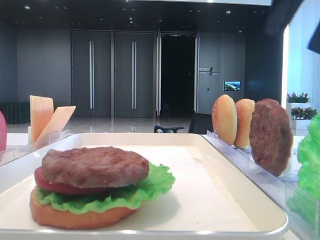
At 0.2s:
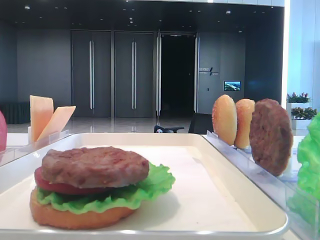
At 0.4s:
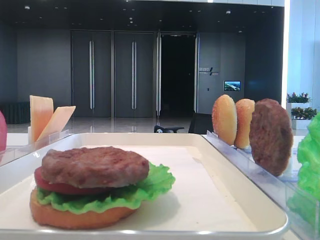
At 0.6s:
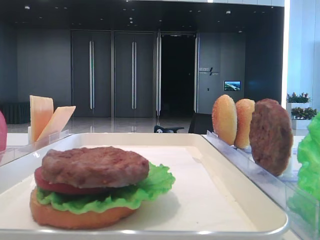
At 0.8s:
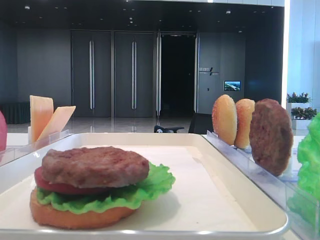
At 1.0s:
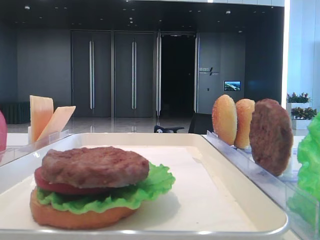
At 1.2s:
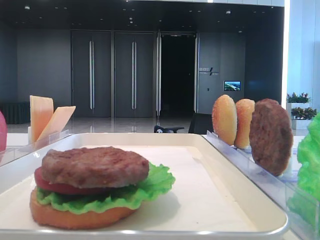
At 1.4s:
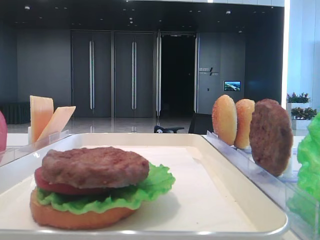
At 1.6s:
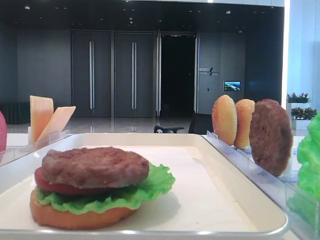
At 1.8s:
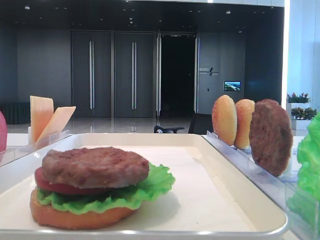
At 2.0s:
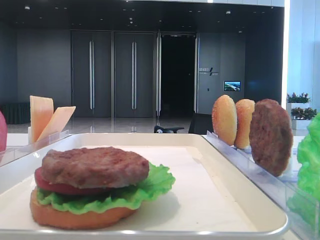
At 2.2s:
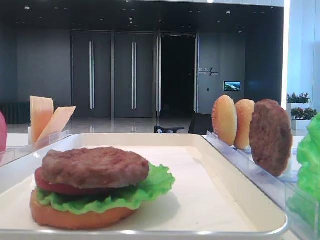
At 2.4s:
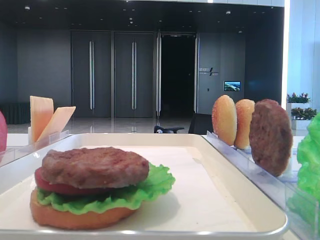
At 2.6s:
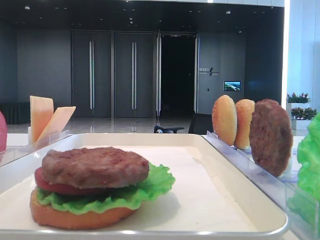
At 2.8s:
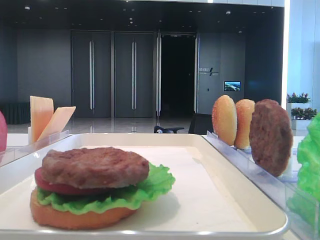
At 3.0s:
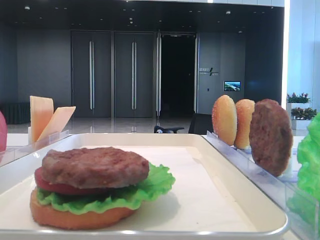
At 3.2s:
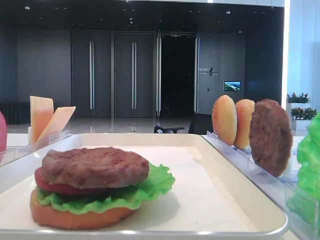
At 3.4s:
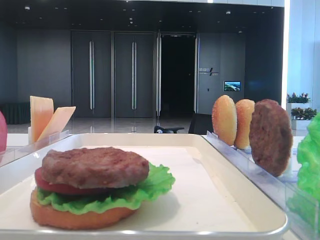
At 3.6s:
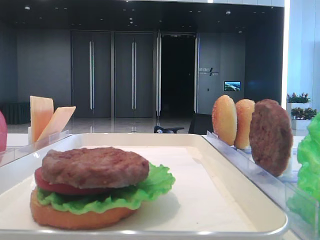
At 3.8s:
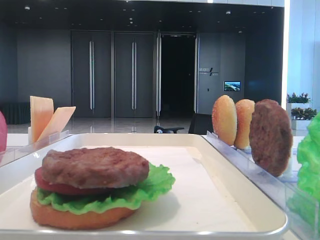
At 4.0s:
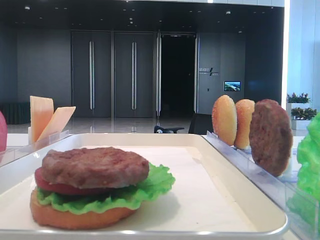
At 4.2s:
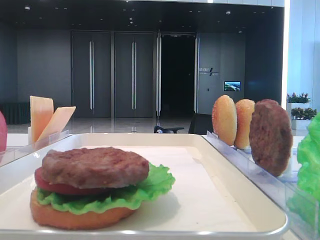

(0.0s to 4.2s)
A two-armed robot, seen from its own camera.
0.0s - 1.4s: The right gripper goes roughly 15 cm backward and to the right.
2.8s - 4.2s: Both grippers stay about where they are.

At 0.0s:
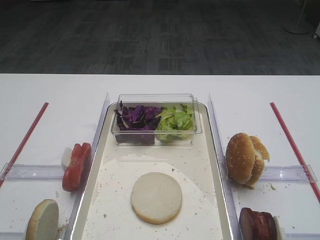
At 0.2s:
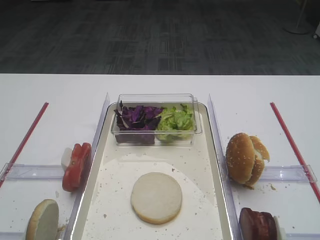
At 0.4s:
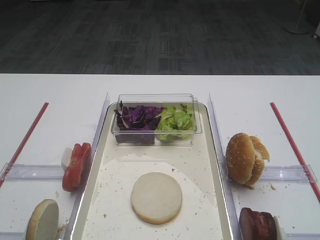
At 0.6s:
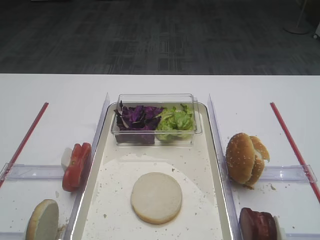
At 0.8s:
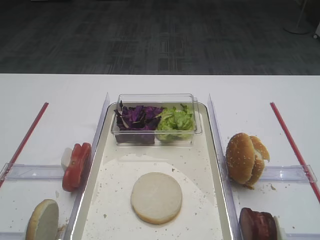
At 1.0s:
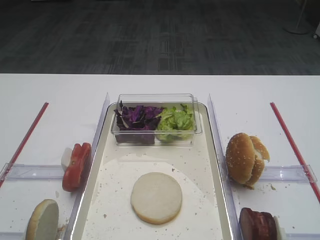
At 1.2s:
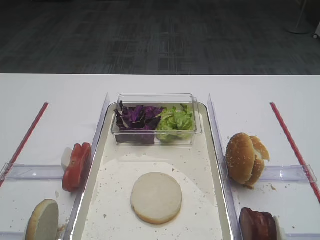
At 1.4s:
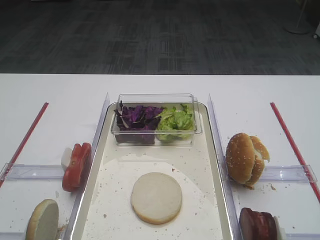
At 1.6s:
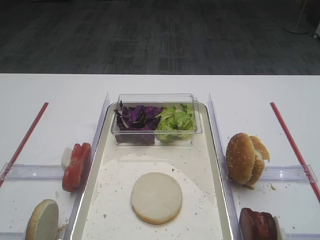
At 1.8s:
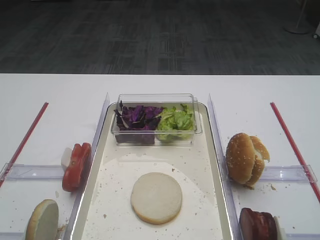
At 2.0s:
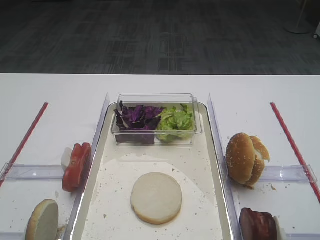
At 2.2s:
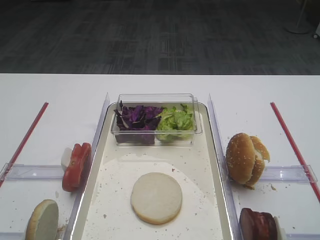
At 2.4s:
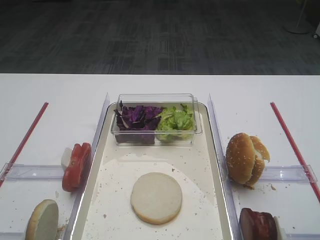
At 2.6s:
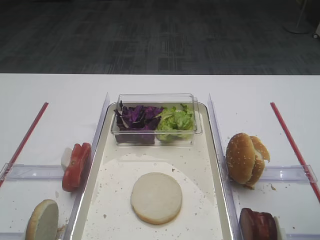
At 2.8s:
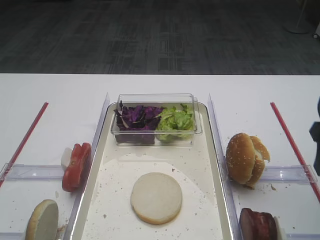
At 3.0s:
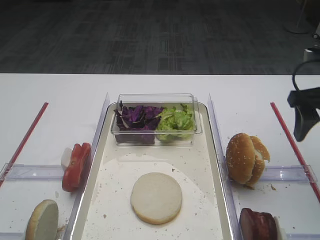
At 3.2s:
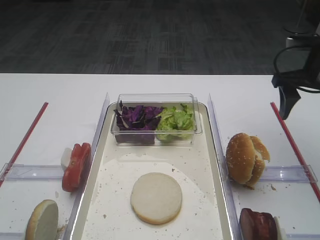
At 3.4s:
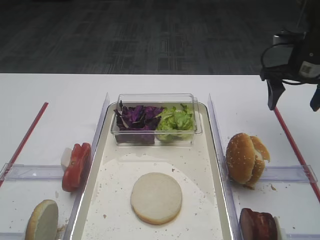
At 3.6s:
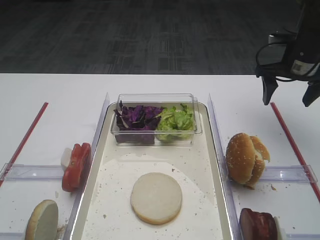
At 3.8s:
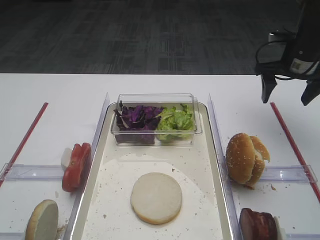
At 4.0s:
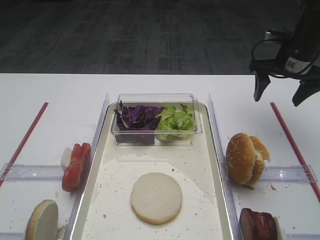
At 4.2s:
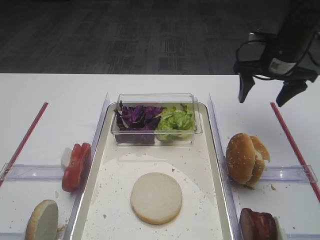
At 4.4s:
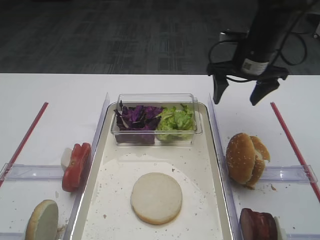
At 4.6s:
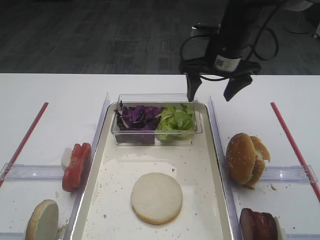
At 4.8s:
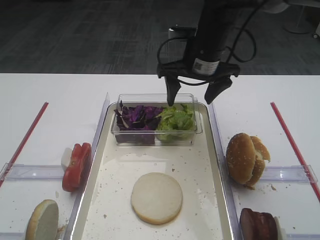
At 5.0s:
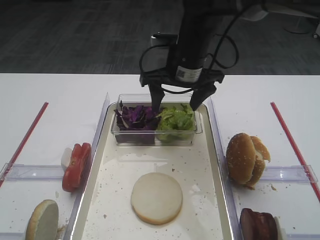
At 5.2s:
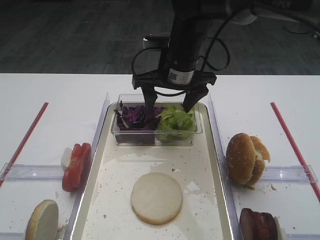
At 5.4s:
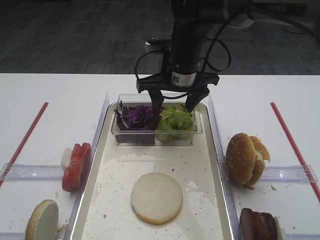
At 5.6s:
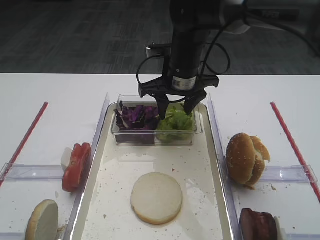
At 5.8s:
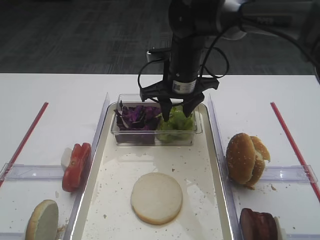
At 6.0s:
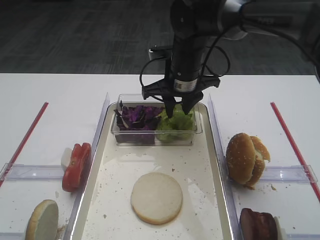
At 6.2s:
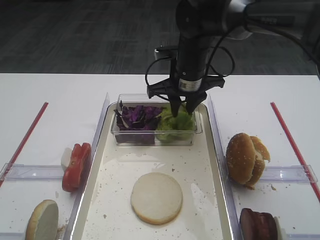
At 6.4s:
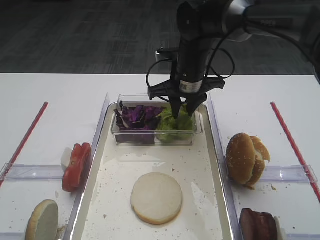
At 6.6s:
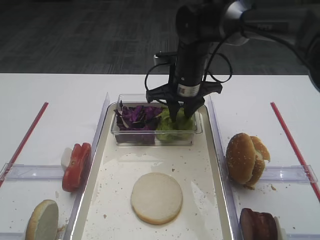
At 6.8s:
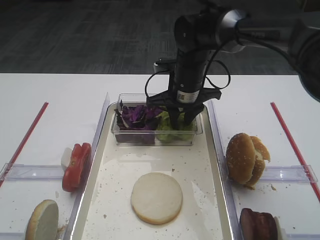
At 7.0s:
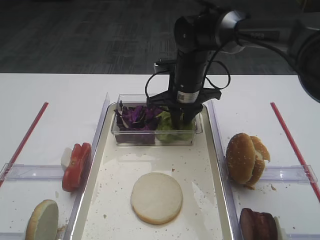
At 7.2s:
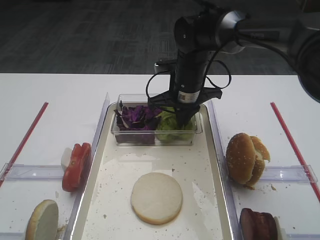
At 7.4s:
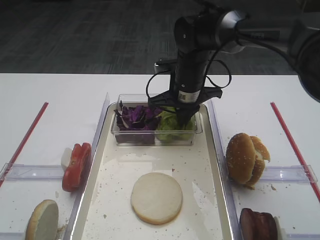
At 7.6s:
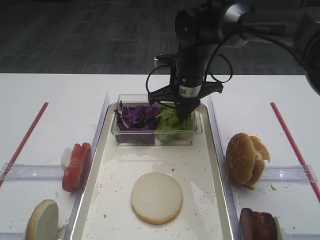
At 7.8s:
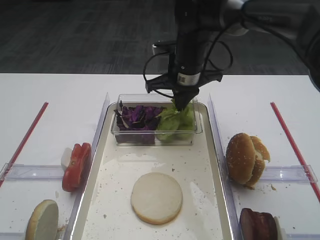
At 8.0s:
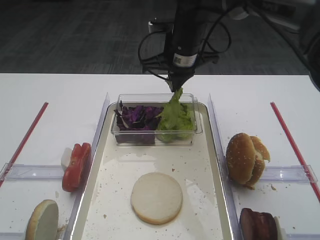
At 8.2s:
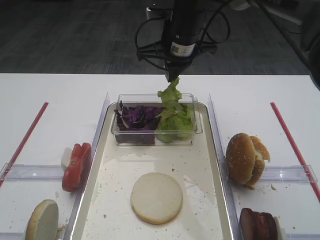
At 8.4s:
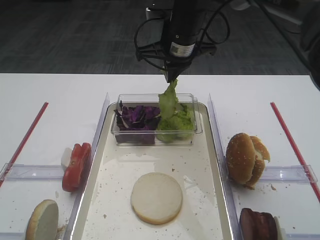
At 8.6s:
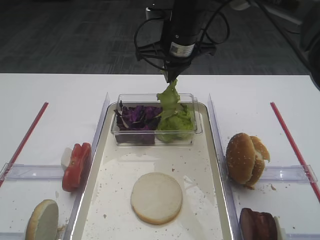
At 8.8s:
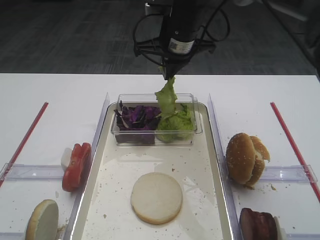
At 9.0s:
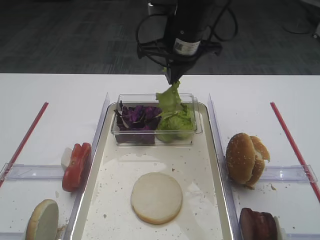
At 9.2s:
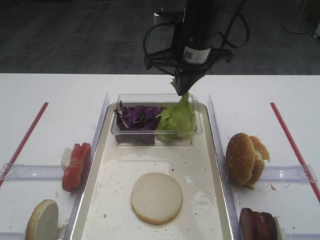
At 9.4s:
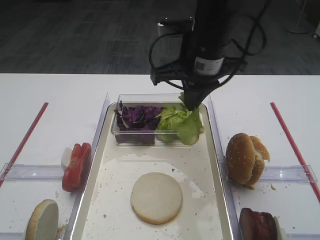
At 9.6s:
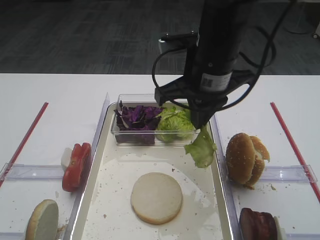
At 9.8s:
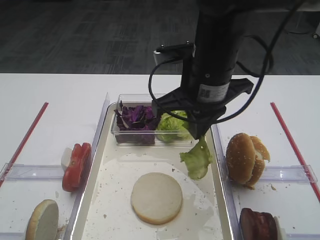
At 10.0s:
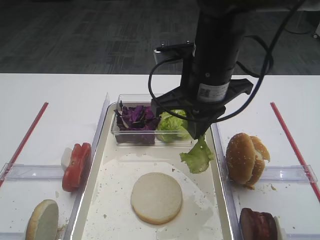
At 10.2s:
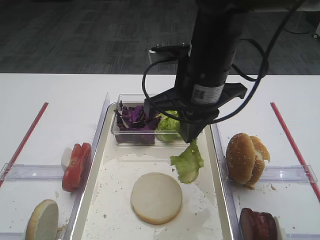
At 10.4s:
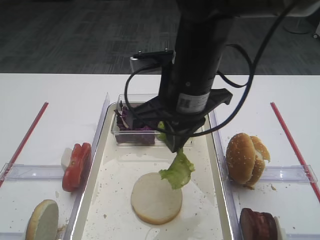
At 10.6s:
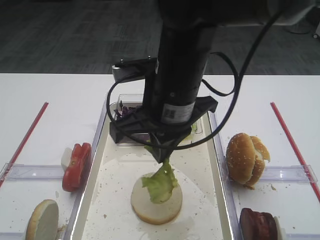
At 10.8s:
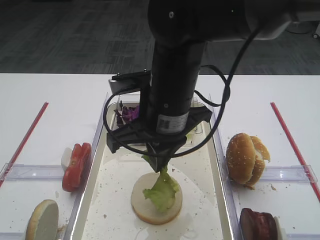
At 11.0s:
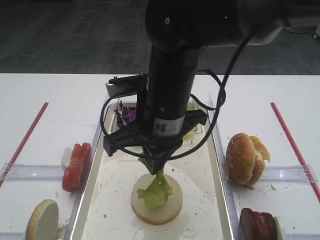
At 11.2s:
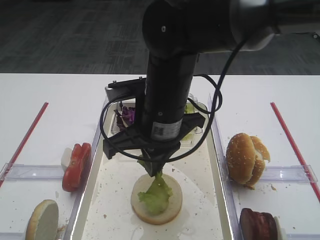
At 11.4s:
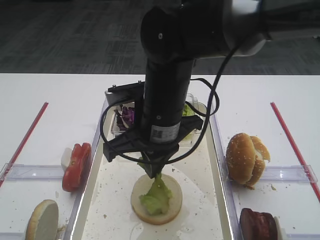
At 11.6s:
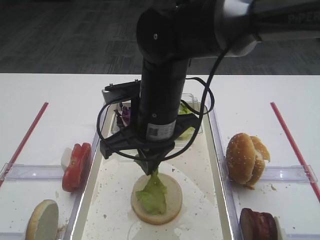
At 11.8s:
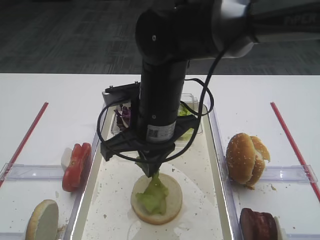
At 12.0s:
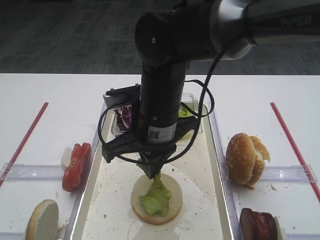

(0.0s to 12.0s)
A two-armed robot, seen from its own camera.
Step, 0.0s - 8.8s: Pick up the lettuce leaf with the right gripper.
1.6s - 3.0s: The right gripper moves forward, some 25 cm.
3.0s - 4.4s: The right gripper is displaced forward and to the left by some 15 cm.
4.4s - 6.0s: The right gripper heads to the left, covering about 15 cm, and closes its fingers.
6.0s - 7.6s: The right gripper closes.
7.6s - 9.0s: The right gripper moves upward, some 10 cm.
9.0s - 10.4s: The right gripper shifts approximately 15 cm backward.
10.4s - 12.0s: The right gripper shifts approximately 5 cm downward.

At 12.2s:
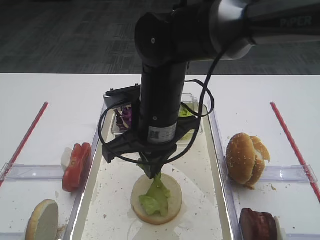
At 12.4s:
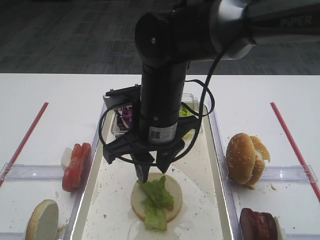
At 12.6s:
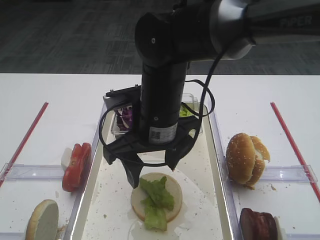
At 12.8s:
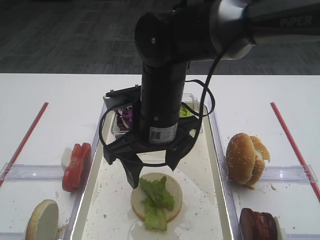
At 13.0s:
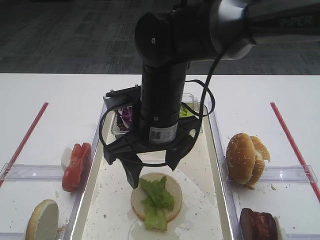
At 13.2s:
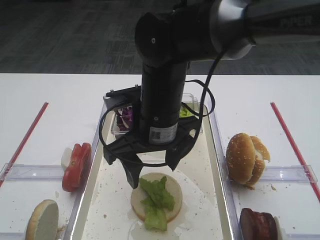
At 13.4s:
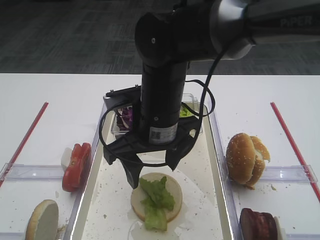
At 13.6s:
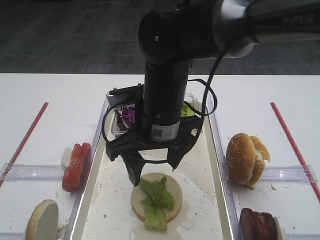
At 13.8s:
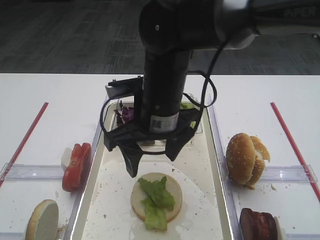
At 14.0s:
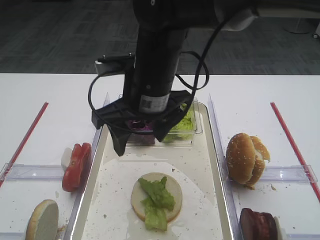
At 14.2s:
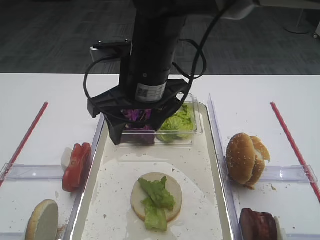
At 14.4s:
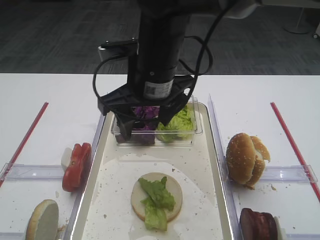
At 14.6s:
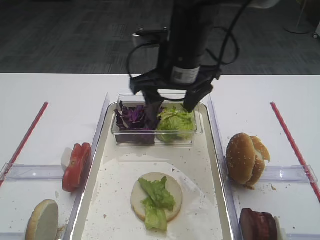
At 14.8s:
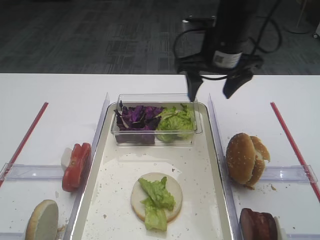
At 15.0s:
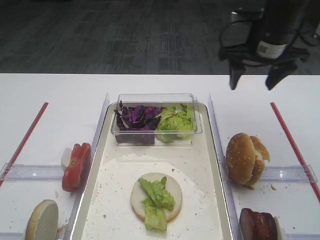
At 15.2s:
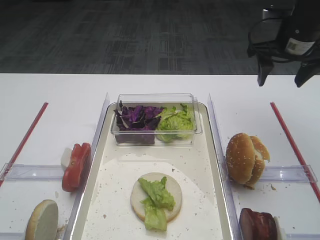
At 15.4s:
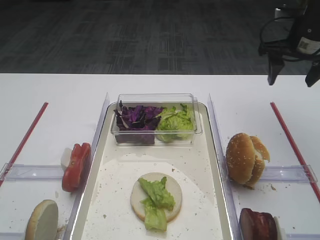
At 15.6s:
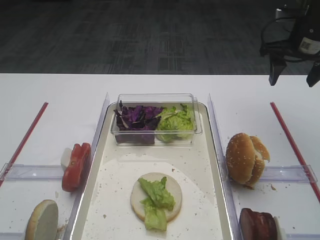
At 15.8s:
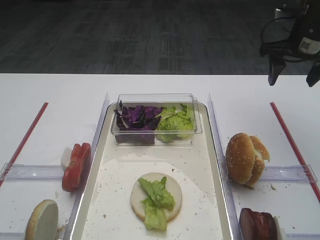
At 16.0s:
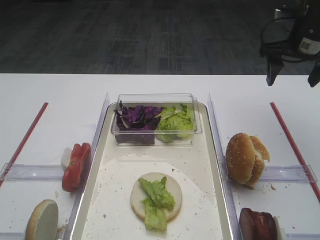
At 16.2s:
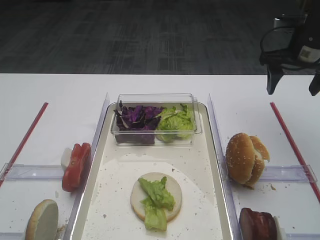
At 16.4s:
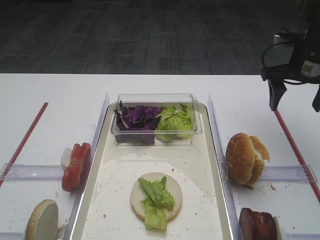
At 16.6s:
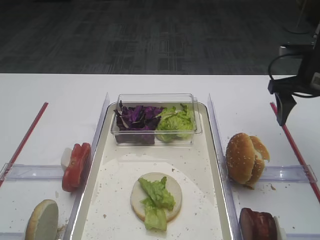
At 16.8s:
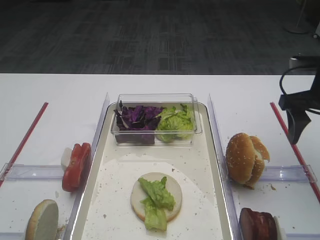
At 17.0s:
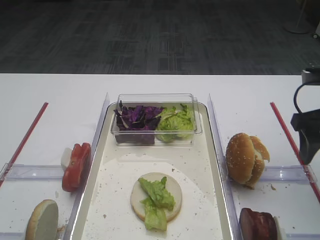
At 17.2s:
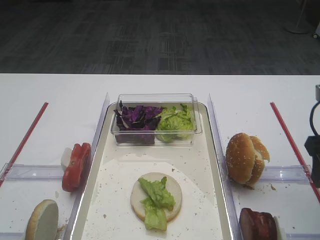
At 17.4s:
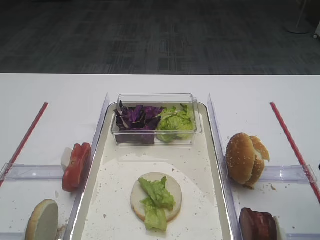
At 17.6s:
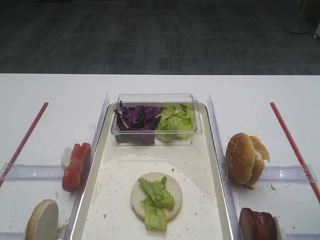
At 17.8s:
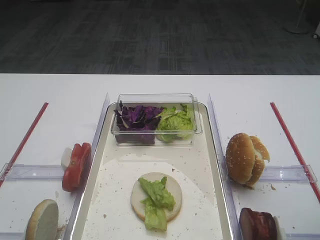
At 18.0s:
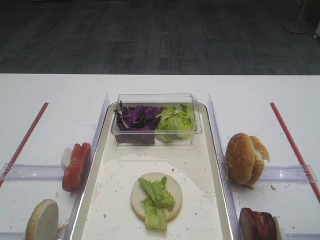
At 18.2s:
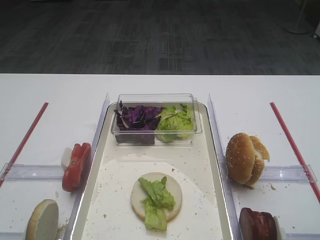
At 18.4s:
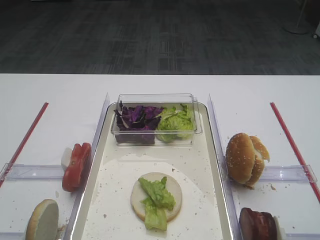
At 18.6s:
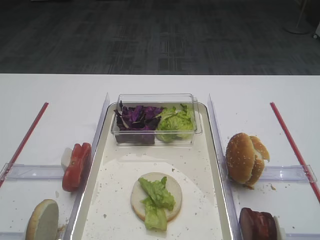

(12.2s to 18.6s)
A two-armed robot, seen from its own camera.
12.2s - 13.8s: The right gripper opens up.
13.8s - 15.4s: The right gripper travels to the right and forward by approximately 30 cm.
15.4s - 17.0s: The right gripper heads backward, covering approximately 15 cm.
17.0s - 18.6s: The right gripper goes roughly 20 cm backward.
